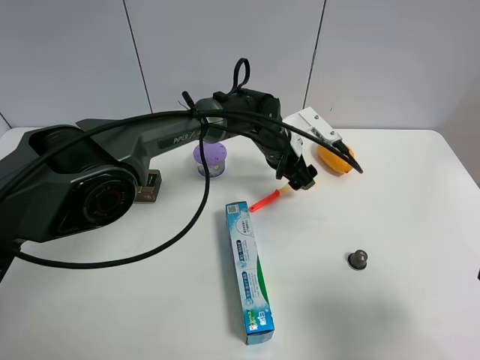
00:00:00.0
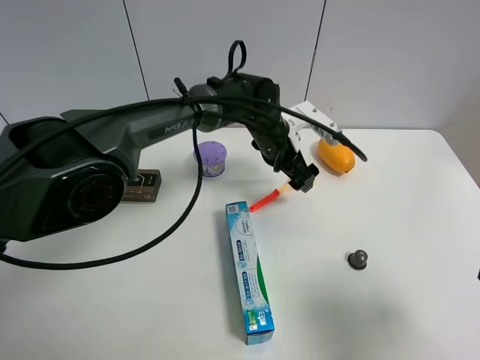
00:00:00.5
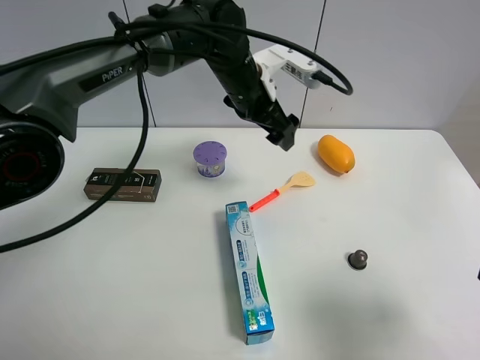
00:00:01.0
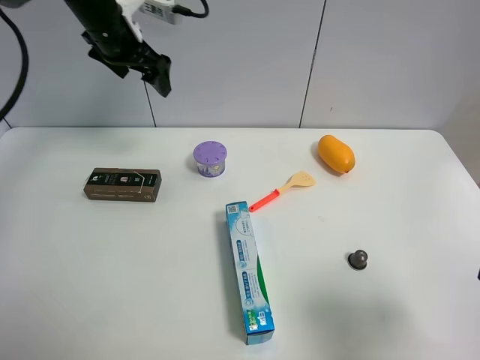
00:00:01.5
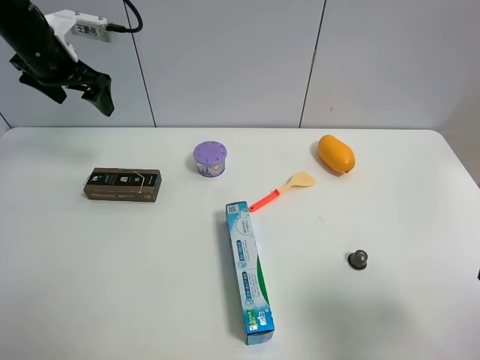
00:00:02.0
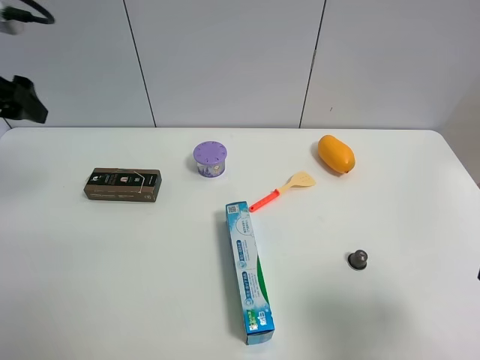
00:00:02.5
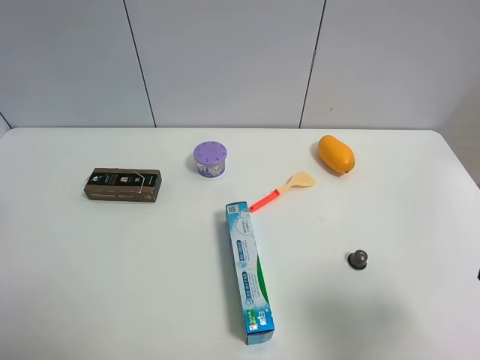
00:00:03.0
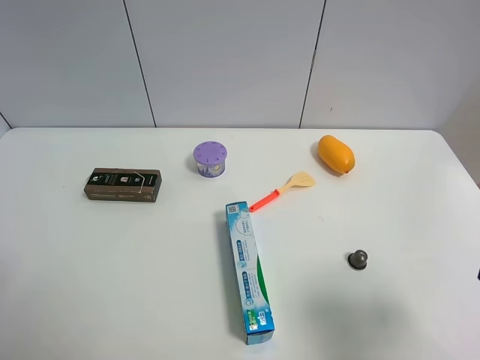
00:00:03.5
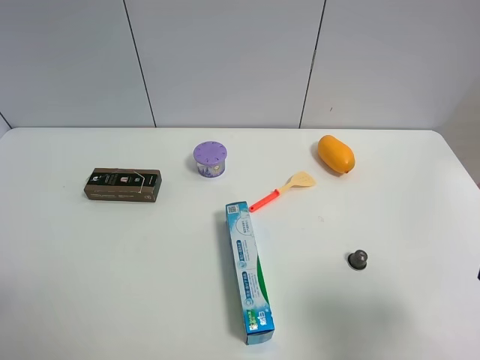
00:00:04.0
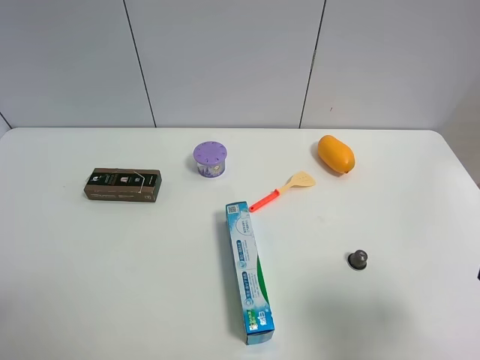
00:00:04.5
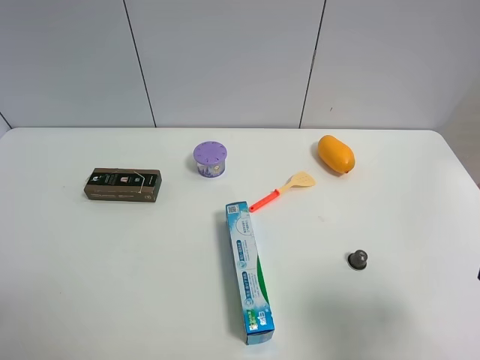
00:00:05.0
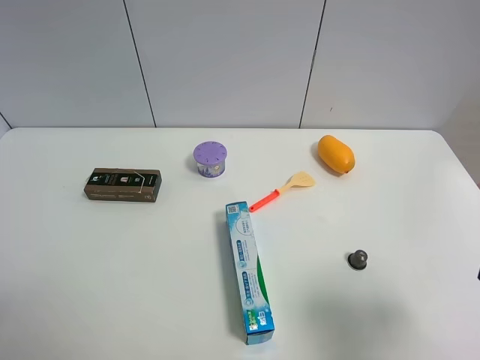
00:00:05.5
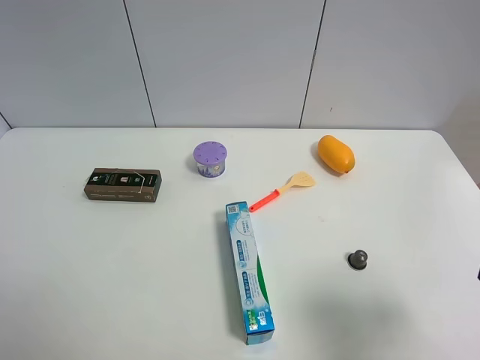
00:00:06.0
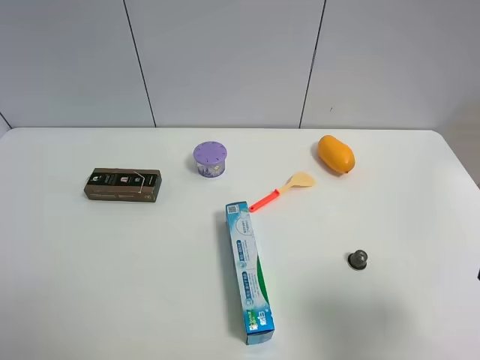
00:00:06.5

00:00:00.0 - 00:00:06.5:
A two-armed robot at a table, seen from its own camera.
Task of the whole recording: the gripper move the object.
00:00:00.0 - 00:00:02.0: The left gripper moves to the left and upward, roughly 40 cm.
00:00:02.0 - 00:00:04.5: The left gripper moves backward, about 40 cm.

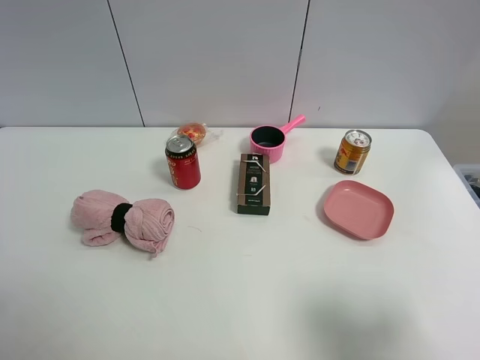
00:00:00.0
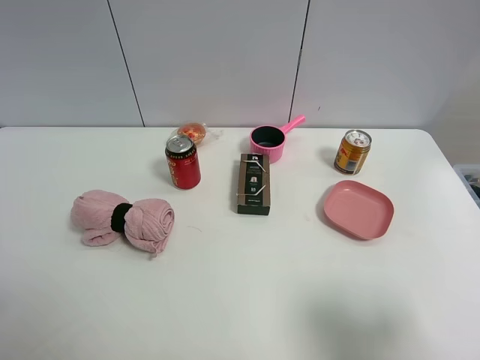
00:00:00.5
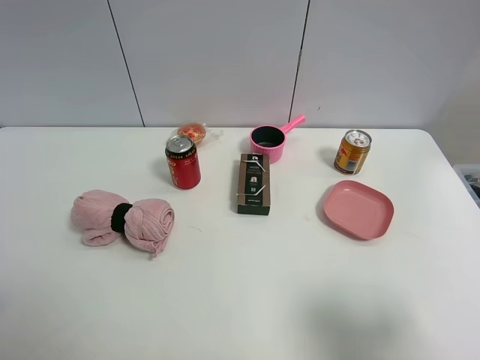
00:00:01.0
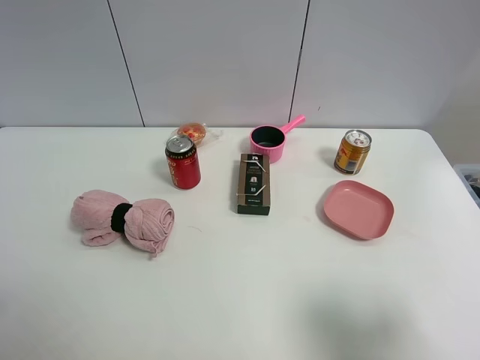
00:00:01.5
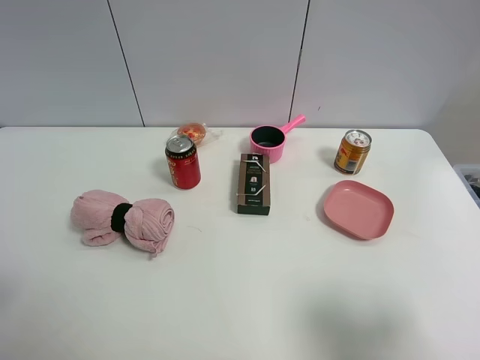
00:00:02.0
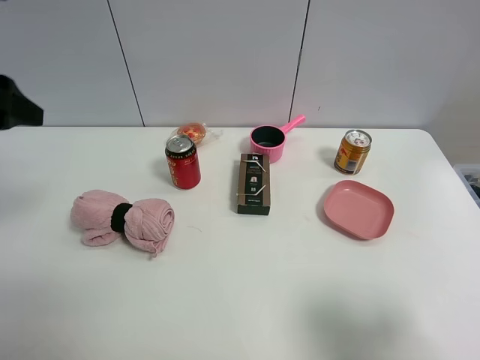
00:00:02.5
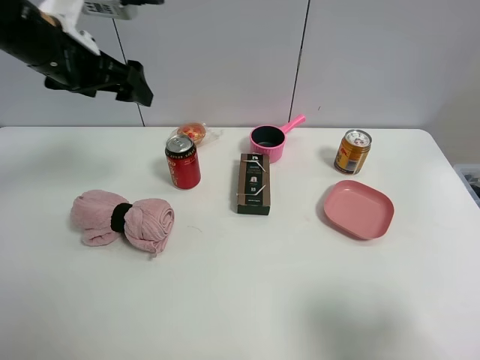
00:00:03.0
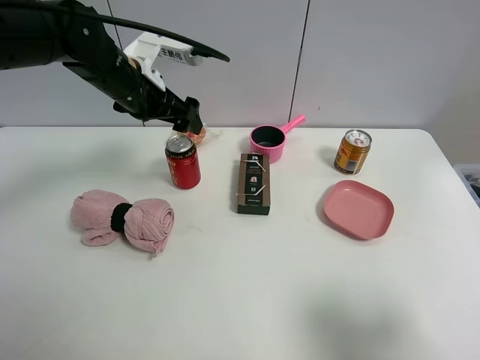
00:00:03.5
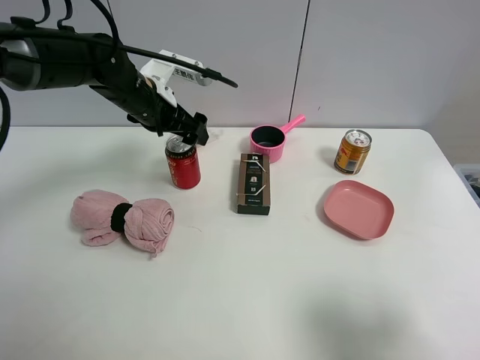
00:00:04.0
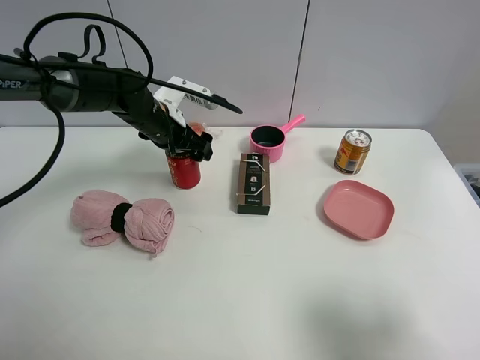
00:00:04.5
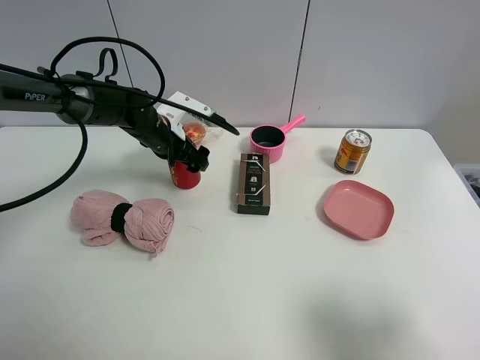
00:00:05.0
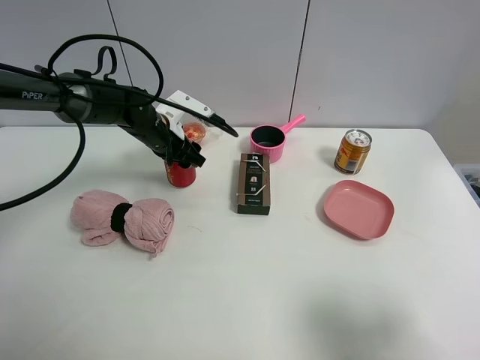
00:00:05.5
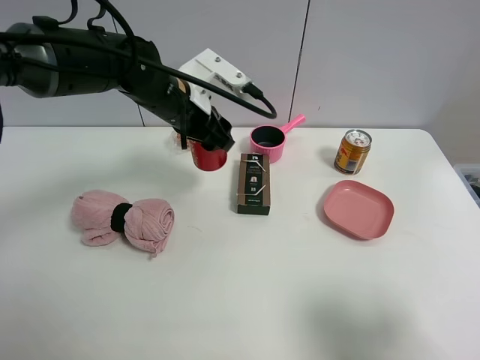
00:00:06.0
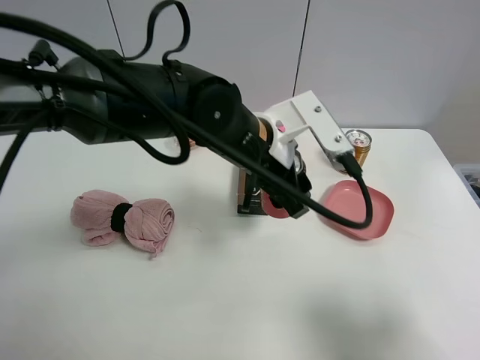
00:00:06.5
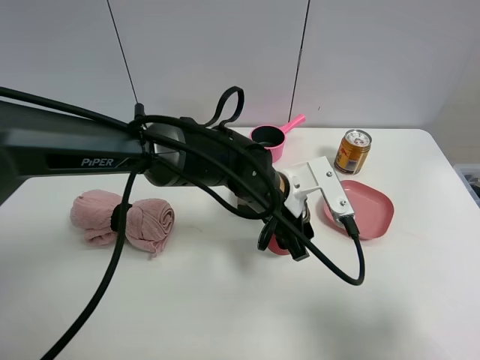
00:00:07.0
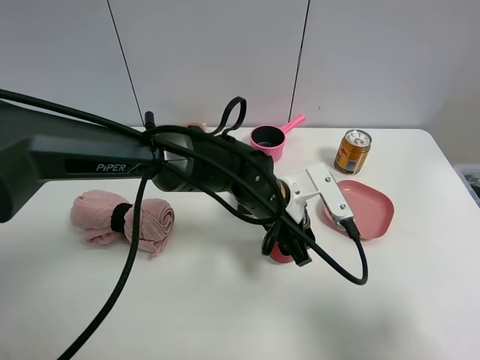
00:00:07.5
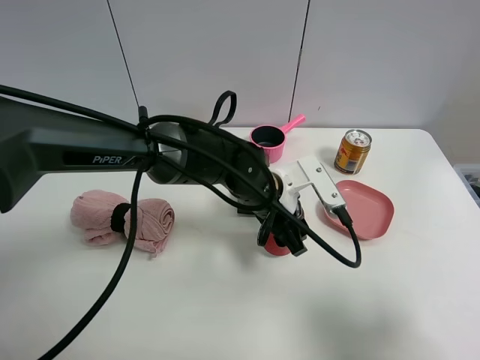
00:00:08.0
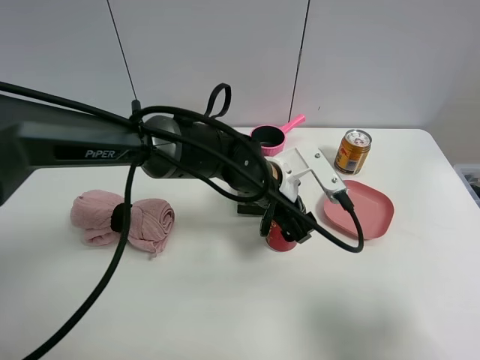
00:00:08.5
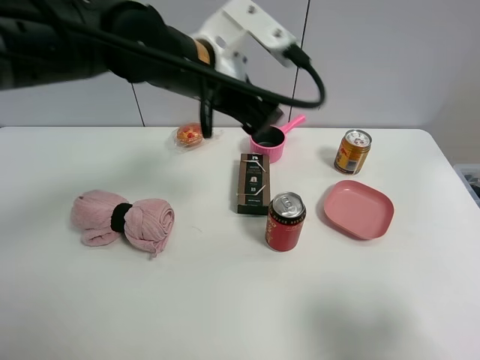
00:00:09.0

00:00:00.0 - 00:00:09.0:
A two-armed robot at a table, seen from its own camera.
Task of the whole recording: the gripper move the object.
Step, 00:00:00.0 - 00:00:05.0: Grasp the Jia Duo Bao with the left gripper.
Step, 00:00:05.5 - 00:00:08.5: Place the Jia Duo Bao on the table with the left gripper.
00:00:02.0 - 00:00:04.5: The left gripper goes approximately 40 cm forward and to the right.
00:00:04.5 - 00:00:07.0: The left gripper is displaced to the right and backward by about 25 cm, and closes up.
00:00:07.0 - 00:00:09.0: The left gripper travels upward and to the left by some 15 cm, and opens up.

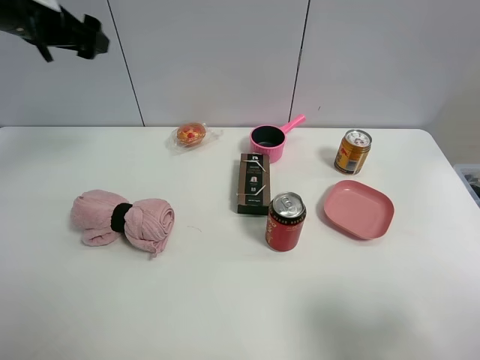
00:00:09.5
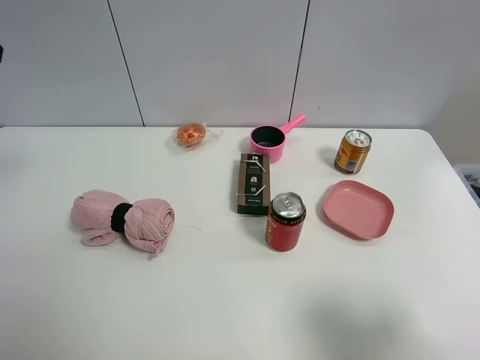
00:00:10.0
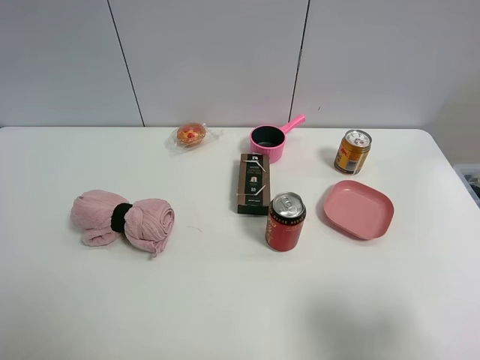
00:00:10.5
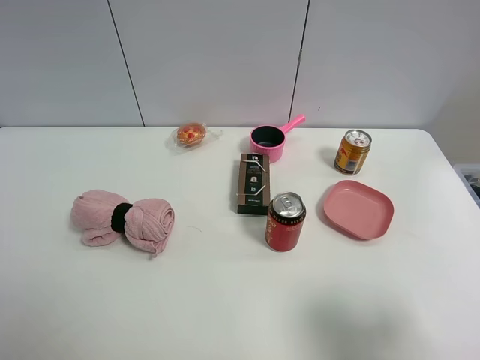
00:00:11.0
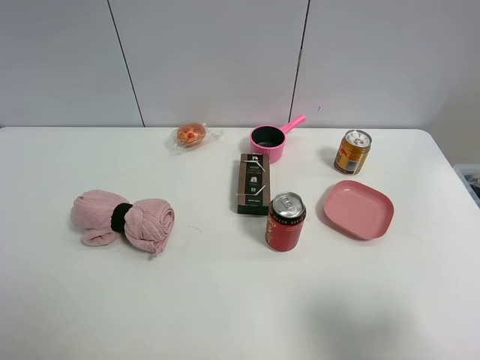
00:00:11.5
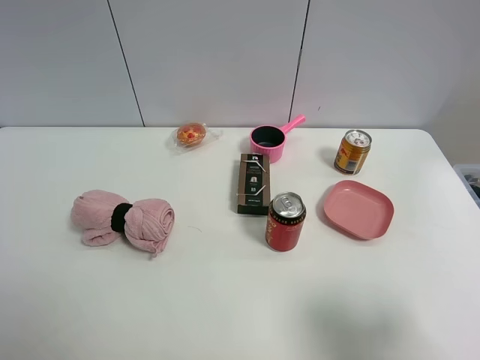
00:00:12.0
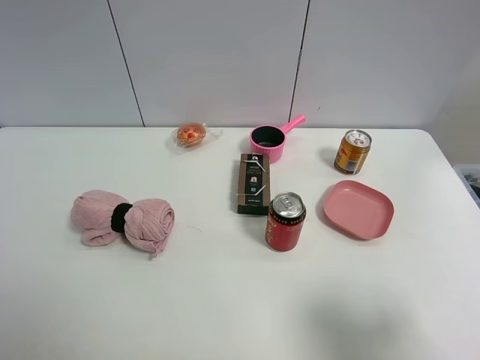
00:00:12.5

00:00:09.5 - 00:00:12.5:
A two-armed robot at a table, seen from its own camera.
Task of the whole recording: the gripper move the object.
00:00:09.5 - 00:00:11.0: The left gripper travels backward by about 35 cm.

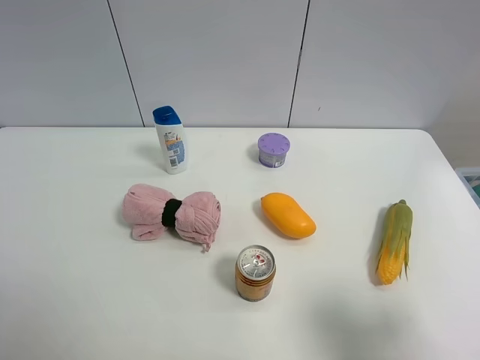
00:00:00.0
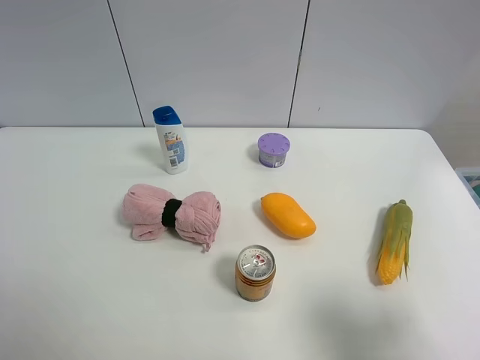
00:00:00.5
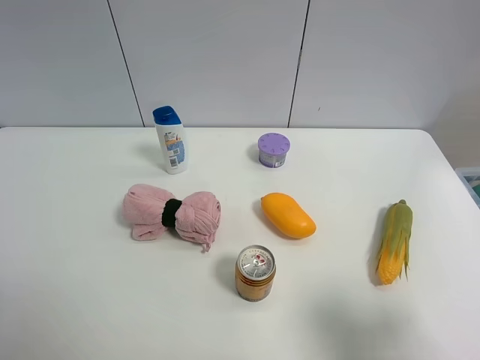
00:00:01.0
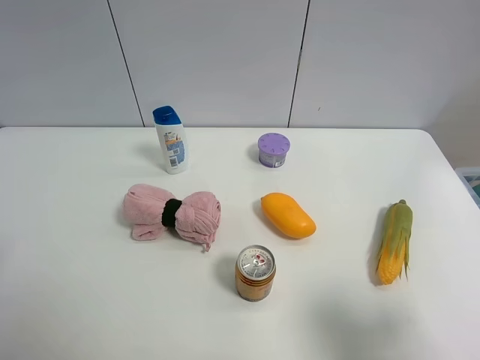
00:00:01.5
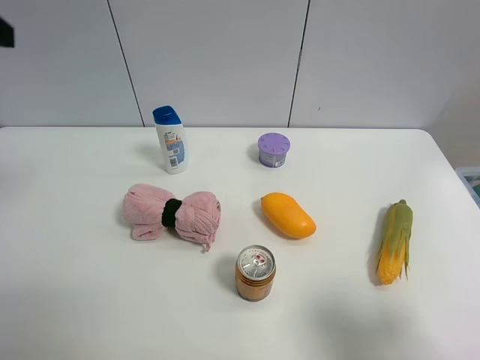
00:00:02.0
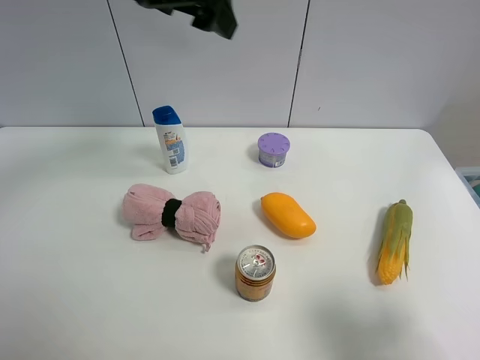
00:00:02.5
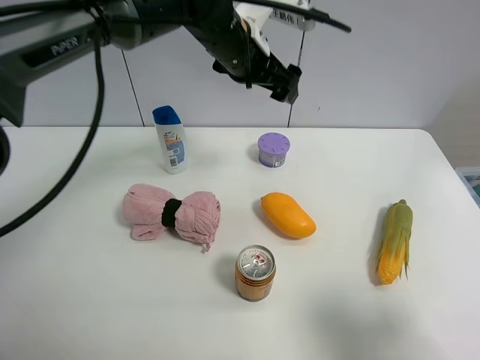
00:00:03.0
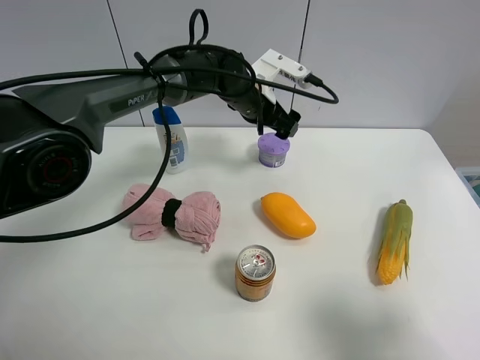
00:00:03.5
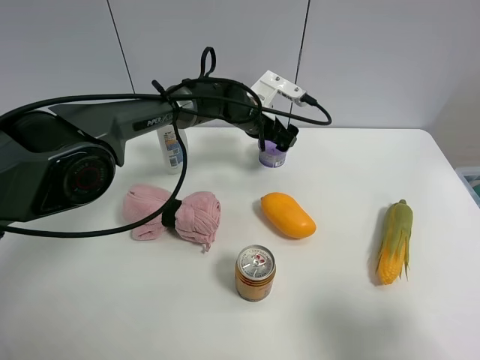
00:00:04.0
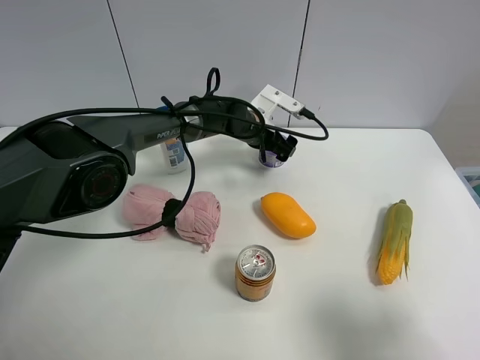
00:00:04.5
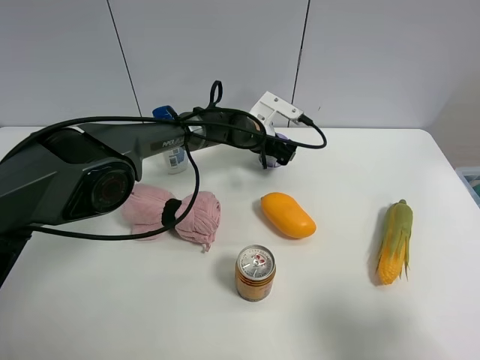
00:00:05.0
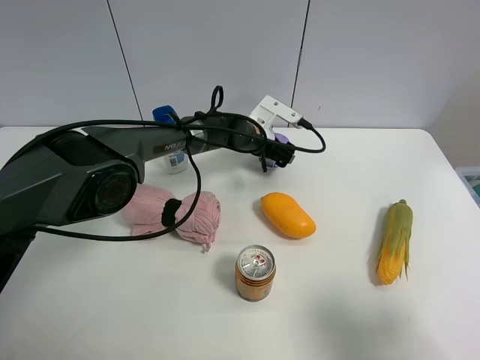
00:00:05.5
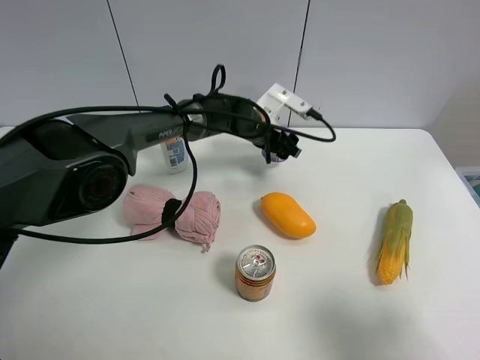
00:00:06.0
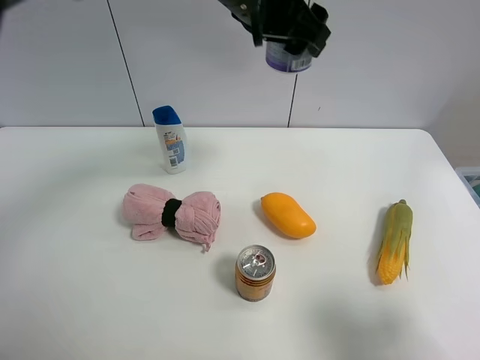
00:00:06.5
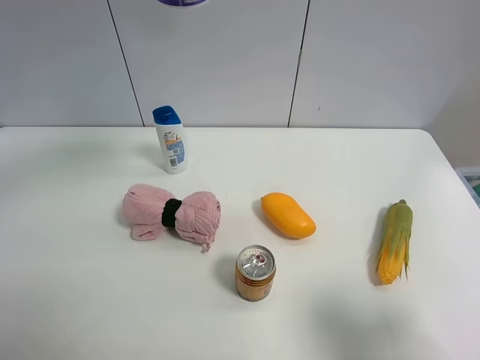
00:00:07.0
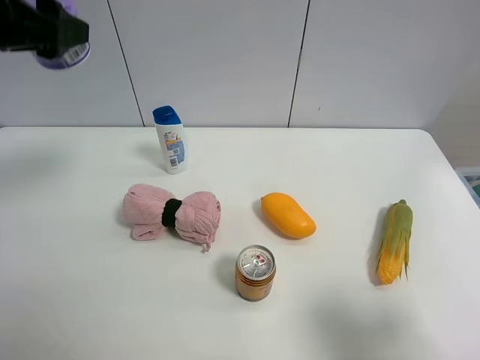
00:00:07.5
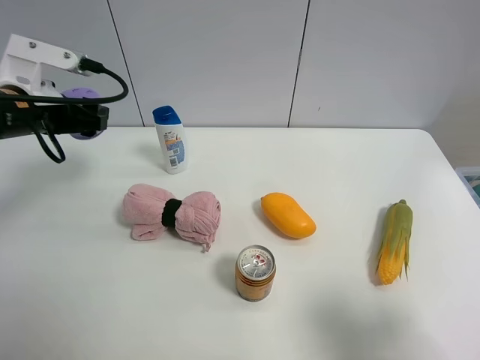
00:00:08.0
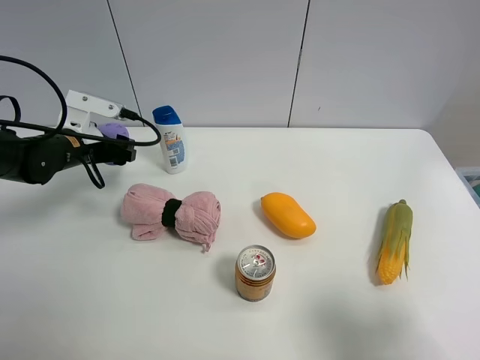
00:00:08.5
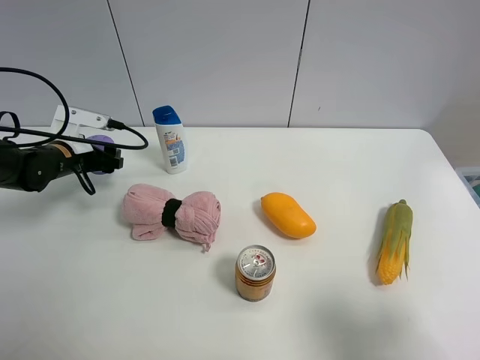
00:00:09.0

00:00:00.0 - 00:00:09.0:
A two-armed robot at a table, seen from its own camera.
Task of the whole recording: the gripper move the object.
Step, 00:00:00.0 - 00:00:05.5: Grasp the Incense box with the left gripper.
00:00:02.0 - 00:00:04.5: The left gripper moves downward, to the right and forward, roughly 50 cm.
00:00:04.5 - 00:00:07.0: The left gripper shifts some 40 cm upward, backward and to the left, and closes.
00:00:07.0 - 00:00:09.0: The left gripper shifts approximately 40 cm downward and to the left.
